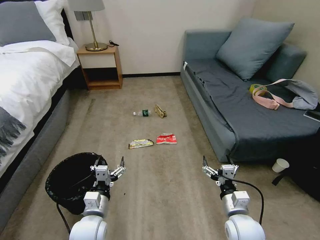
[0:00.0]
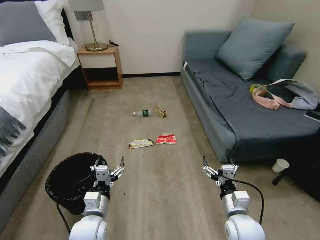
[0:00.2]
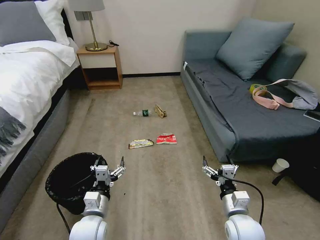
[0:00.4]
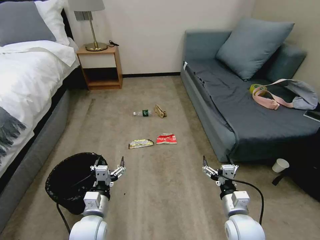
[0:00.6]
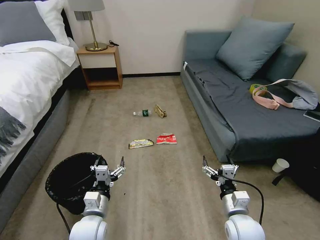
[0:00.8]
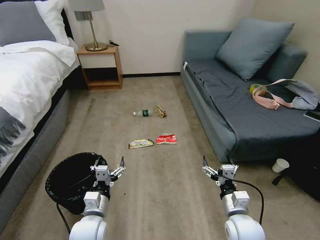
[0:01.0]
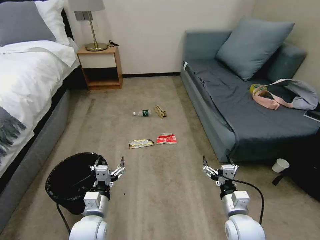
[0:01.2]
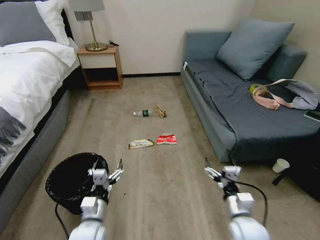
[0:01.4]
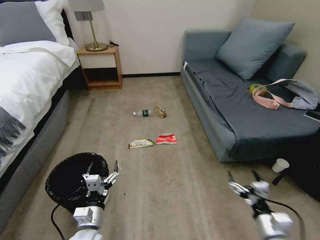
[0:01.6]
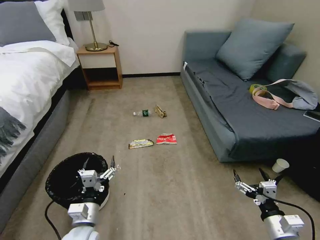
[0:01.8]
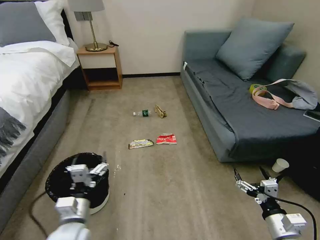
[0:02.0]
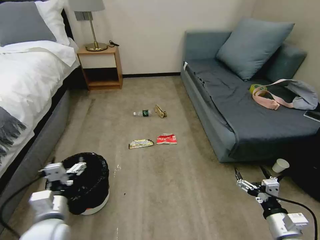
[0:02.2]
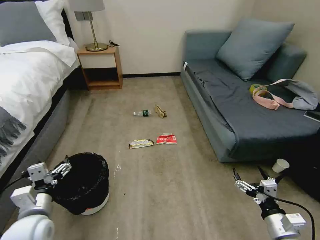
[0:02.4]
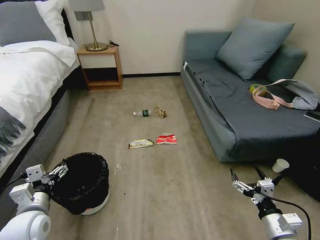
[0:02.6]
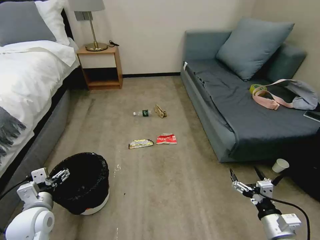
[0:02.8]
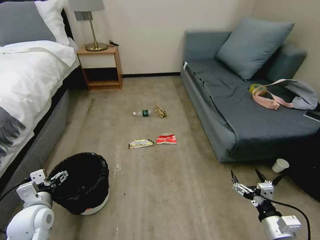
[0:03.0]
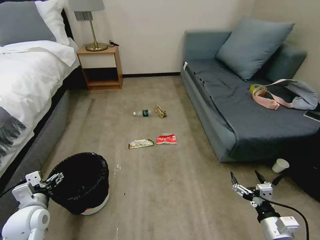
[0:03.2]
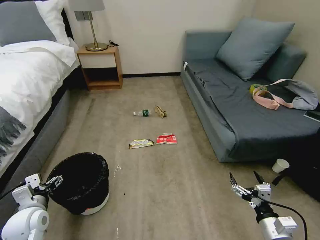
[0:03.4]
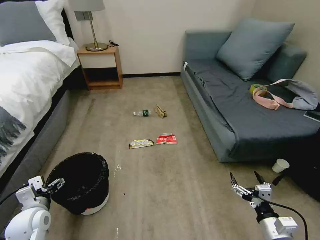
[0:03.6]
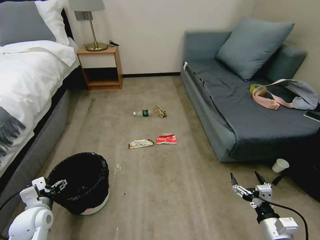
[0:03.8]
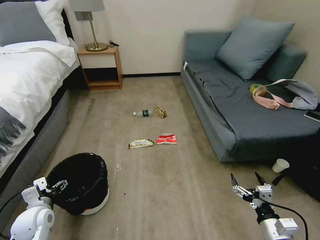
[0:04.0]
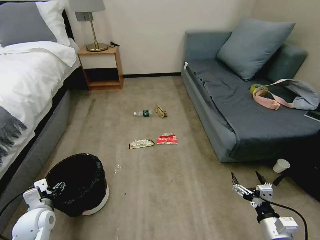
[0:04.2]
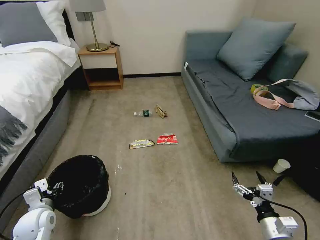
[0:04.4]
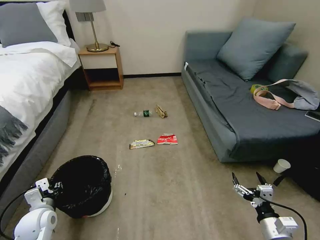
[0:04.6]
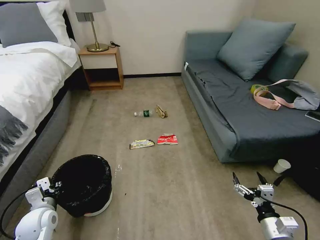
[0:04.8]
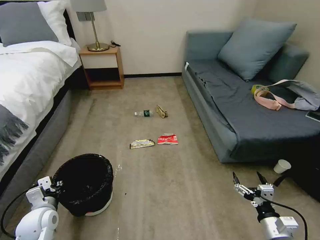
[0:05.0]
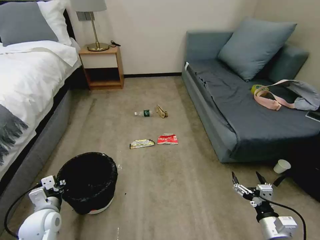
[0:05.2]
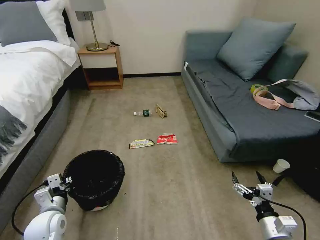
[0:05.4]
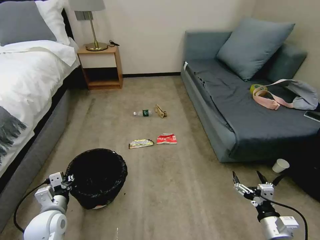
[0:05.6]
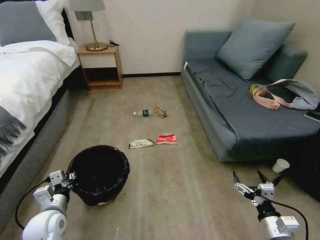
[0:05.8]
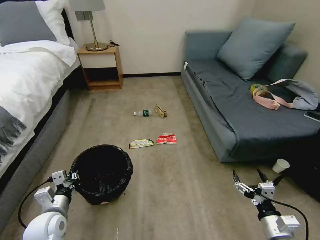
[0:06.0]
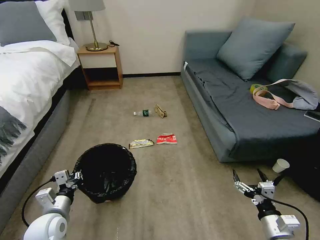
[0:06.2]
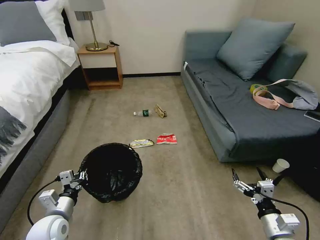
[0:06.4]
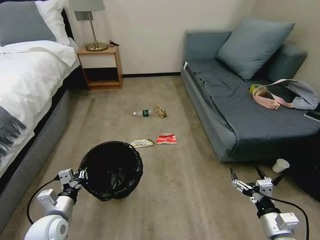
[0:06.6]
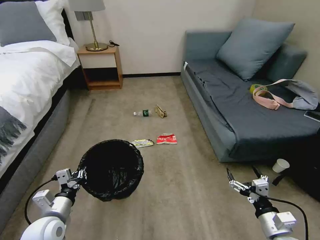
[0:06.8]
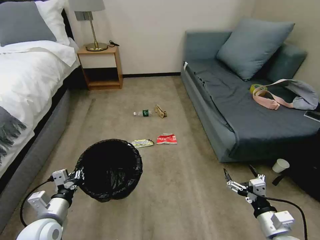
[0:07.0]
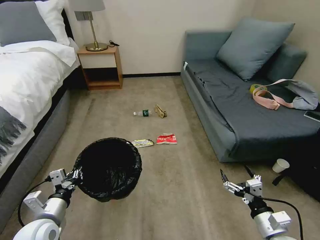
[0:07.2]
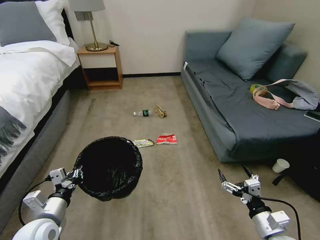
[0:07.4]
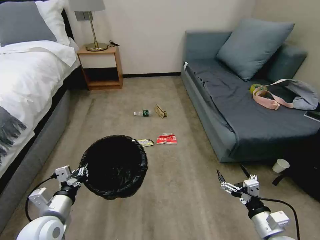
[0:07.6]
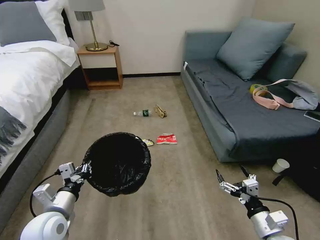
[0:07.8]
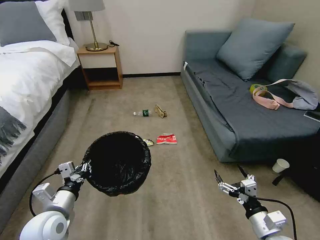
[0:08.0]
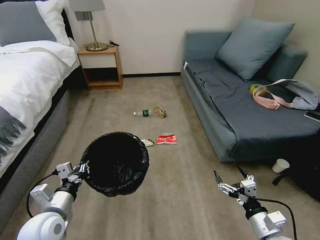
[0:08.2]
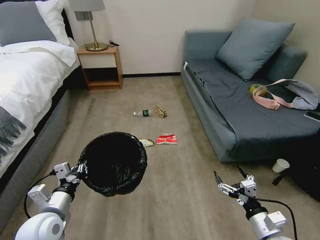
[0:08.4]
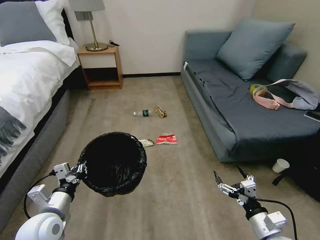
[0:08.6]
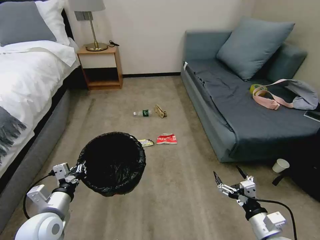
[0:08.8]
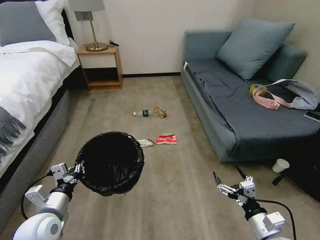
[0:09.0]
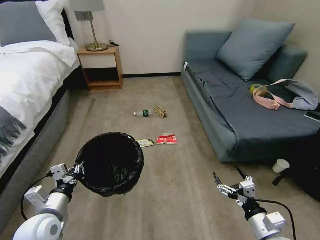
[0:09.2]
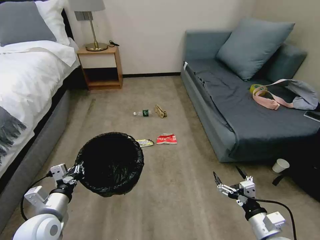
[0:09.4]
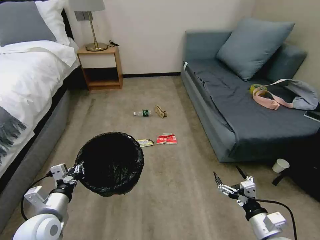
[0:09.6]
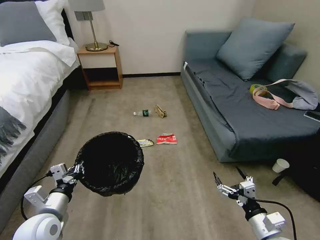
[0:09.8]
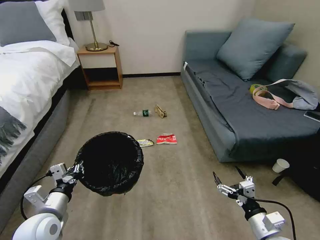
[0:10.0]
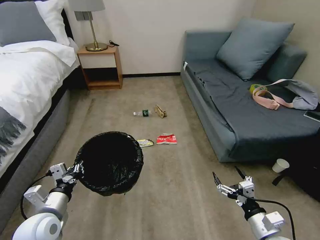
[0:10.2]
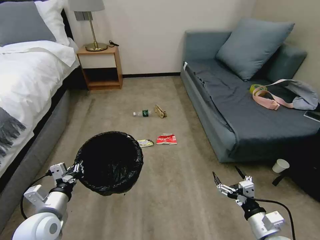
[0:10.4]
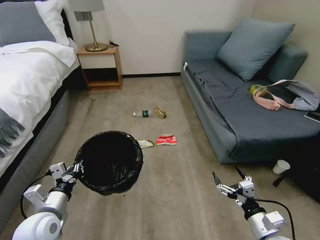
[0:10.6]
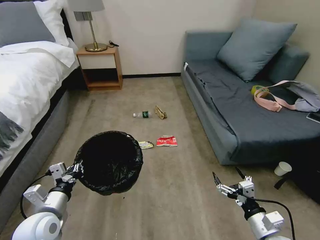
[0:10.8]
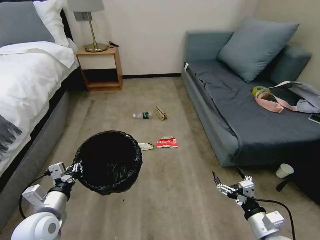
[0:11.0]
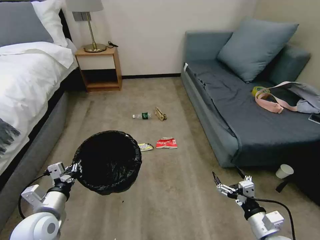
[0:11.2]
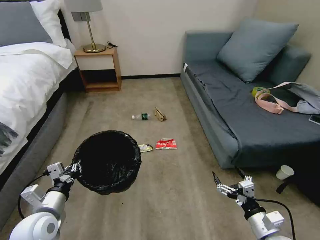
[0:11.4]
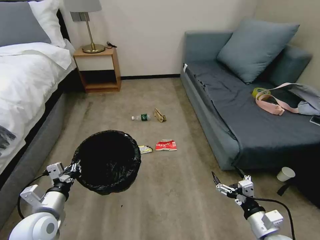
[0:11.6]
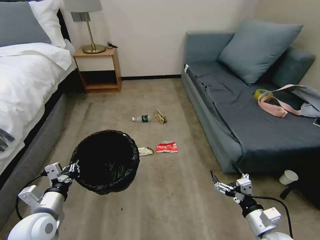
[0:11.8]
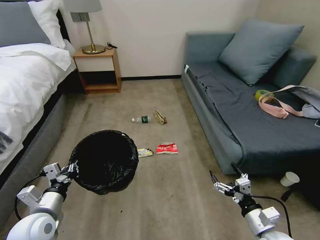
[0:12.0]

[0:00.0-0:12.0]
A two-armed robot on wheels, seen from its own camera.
Task of the whole recording: Pick up the trash bin, then pick up the garbage on the floor and place it into the trash bin.
0:01.6 to 0:03.0: The left gripper goes roughly 15 cm to the left and upward.
0:03.0 to 0:04.4: The left gripper ends up some 5 cm from where it was, and closes.
0:04.4 to 0:06.0: The left gripper shifts by about 5 cm, and closes its fingers.
0:06.0 to 0:07.6: The left gripper ends up about 5 cm from where it was.
0:07.6 to 0:09.0: The grippers move only a little.
0:09.0 to 0:10.4: Both grippers stay put.

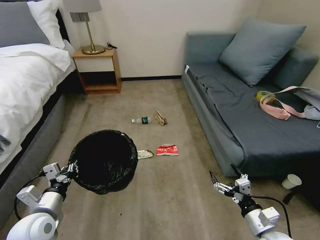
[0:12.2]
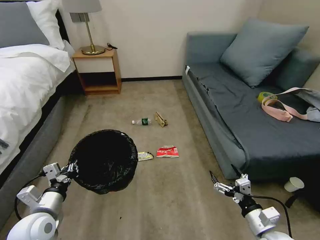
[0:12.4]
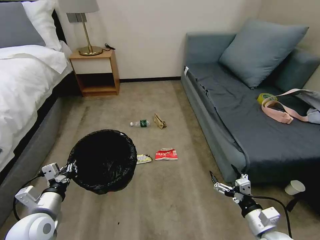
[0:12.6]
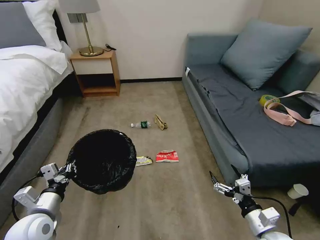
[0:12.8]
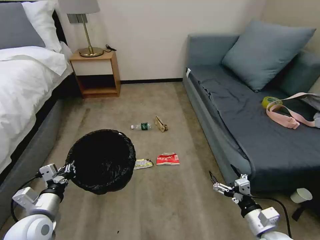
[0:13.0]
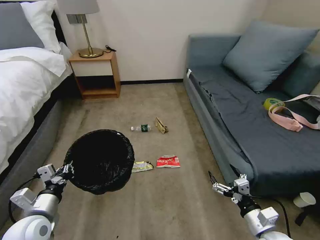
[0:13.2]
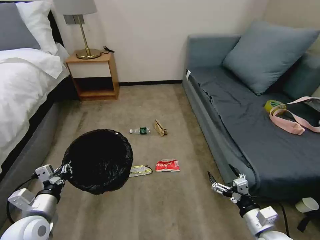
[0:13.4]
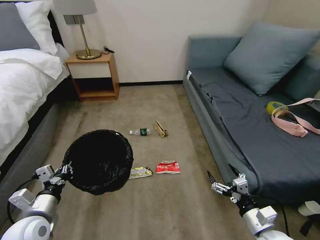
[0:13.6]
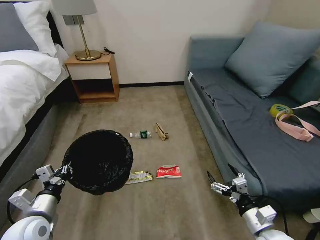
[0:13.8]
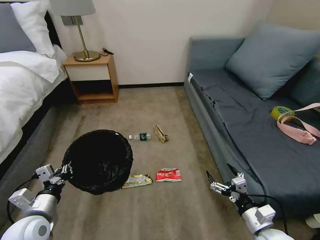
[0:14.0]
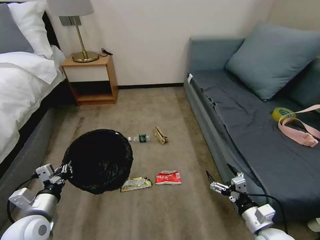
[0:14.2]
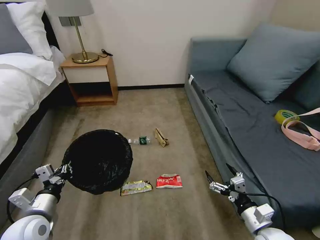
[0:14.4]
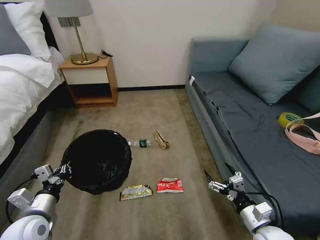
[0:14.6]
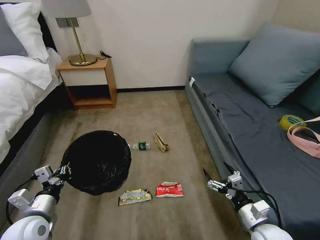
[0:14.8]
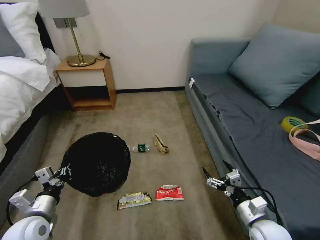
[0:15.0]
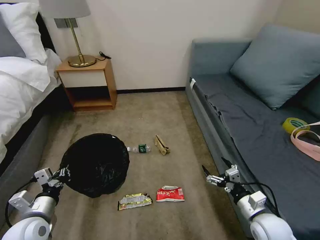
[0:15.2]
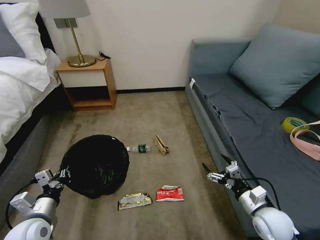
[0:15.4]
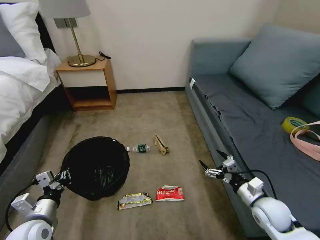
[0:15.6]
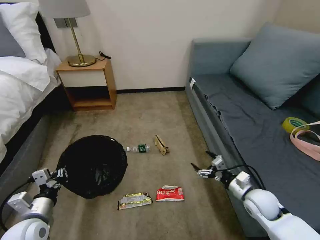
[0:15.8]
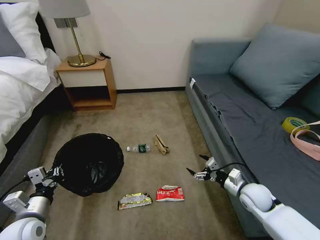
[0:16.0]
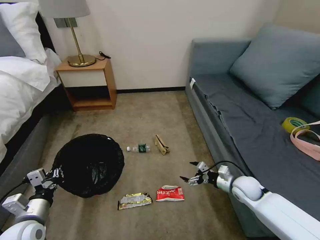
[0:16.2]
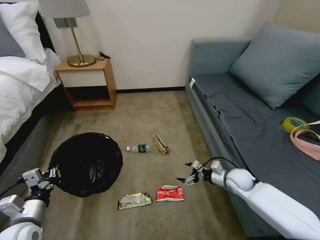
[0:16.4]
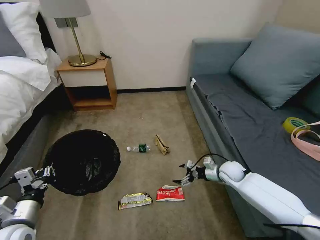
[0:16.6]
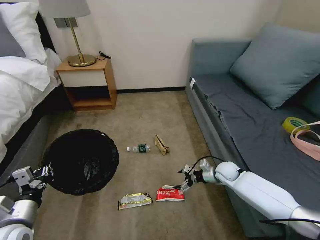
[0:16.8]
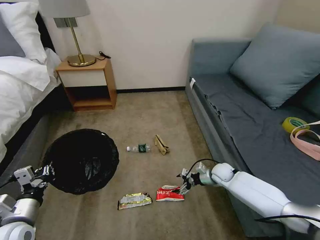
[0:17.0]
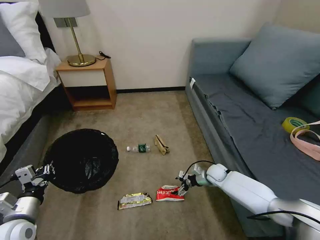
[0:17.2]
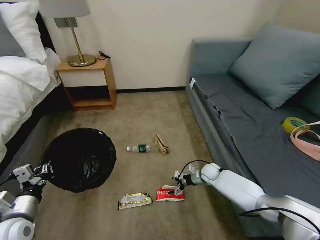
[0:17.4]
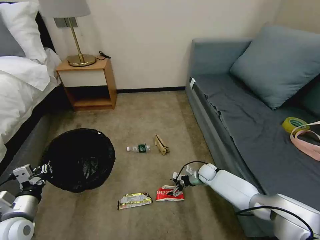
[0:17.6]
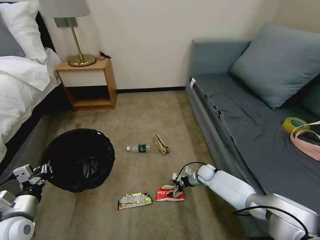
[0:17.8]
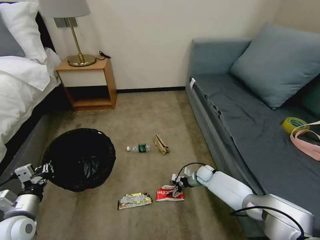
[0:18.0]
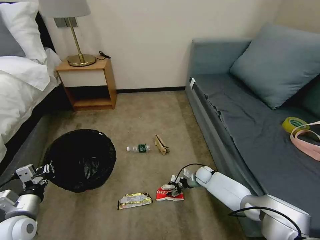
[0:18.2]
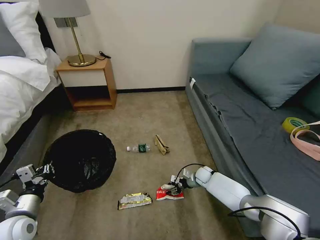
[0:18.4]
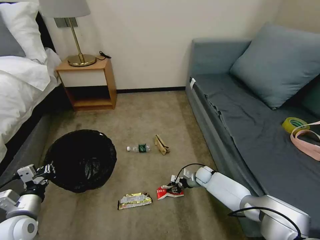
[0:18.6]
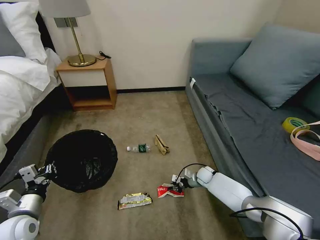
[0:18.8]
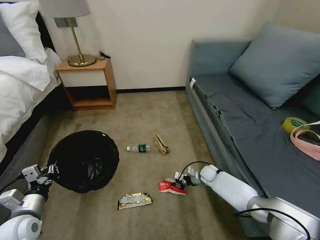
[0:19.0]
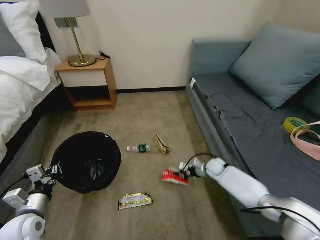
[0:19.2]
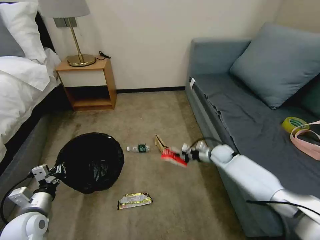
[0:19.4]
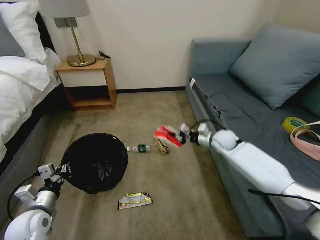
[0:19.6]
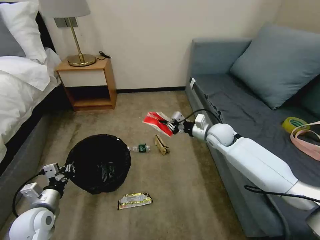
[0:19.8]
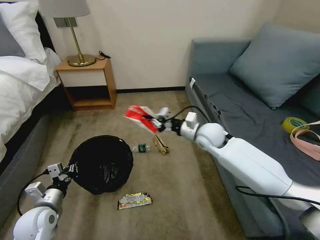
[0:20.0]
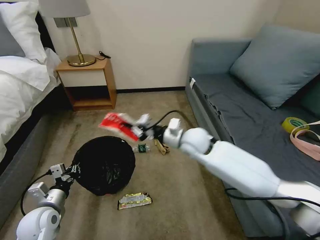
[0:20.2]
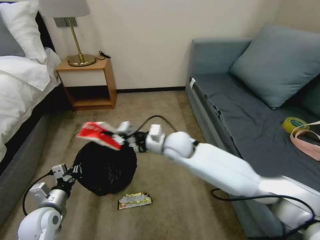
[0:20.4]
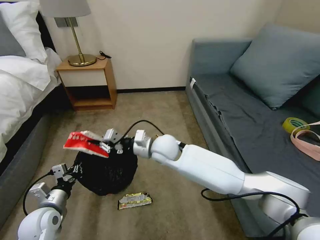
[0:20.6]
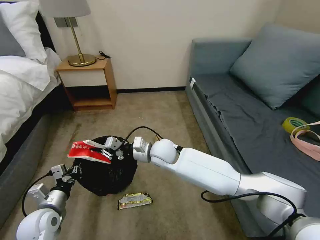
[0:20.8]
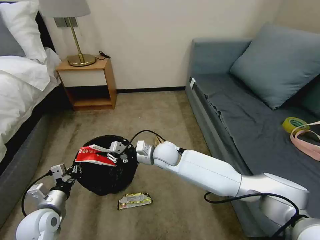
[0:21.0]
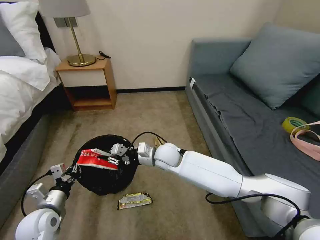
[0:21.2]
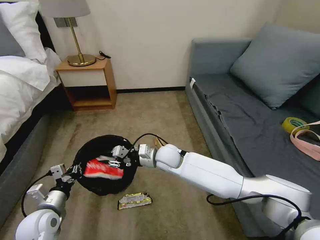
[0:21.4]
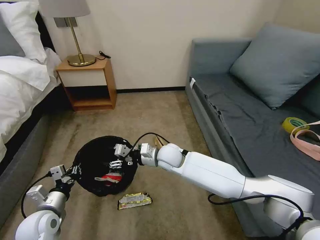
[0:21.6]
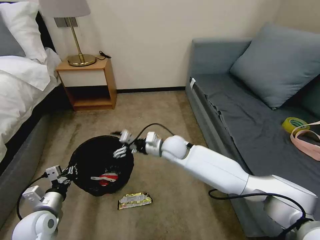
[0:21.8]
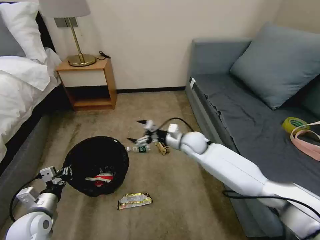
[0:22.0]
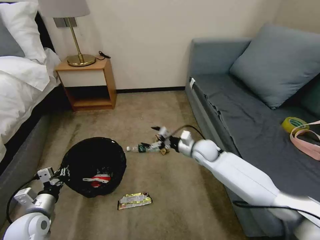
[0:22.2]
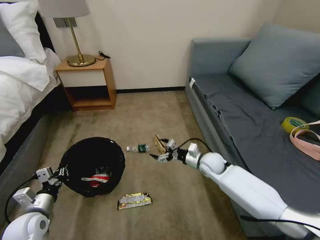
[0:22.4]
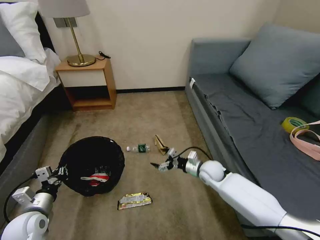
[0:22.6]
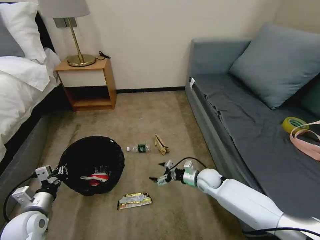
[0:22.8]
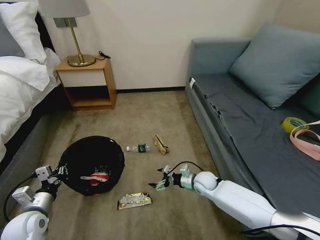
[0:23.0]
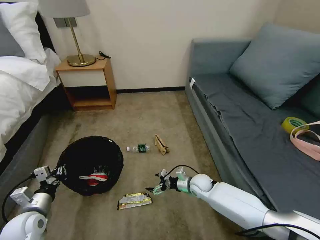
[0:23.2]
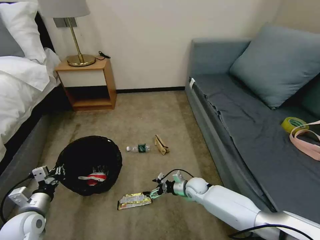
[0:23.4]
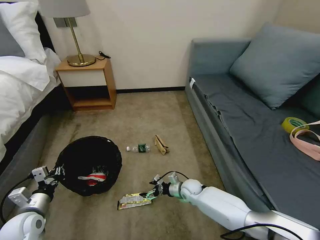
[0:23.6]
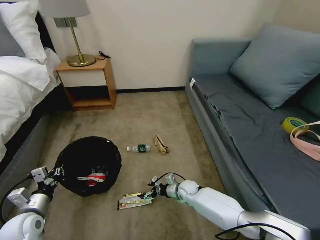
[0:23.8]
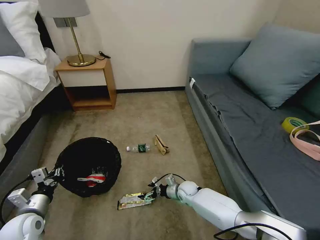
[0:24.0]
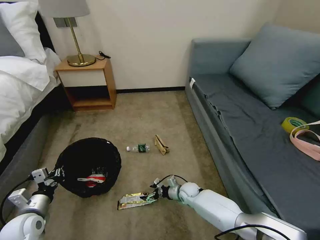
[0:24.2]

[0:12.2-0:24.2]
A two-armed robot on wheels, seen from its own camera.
Task of the whole recording: Pick up the trash bin, then pick up the garbage on the floor and place it into the trash bin.
0:15.2 to 0:16.6: The right gripper moves forward, about 20 cm.
0:16.6 to 0:18.2: The right gripper moves downward and to the left, approximately 15 cm.
0:18.2 to 0:19.8: The right gripper shifts about 25 cm upward, and closes its fingers.
0:19.8 to 0:21.2: The right gripper heads to the left, covering approximately 20 cm.
0:21.2 to 0:22.6: The right gripper moves to the right and downward, approximately 20 cm, and opens its fingers.
0:22.6 to 0:24.2: The right gripper heads downward and to the left, covering some 15 cm.
